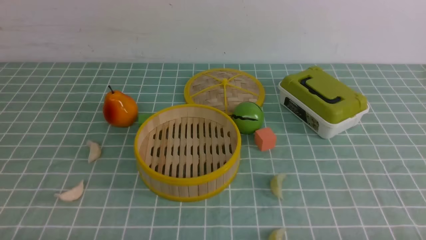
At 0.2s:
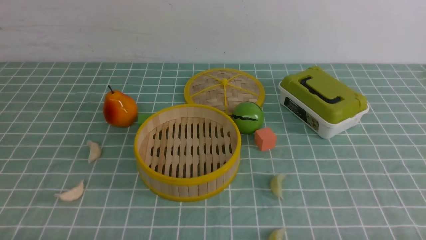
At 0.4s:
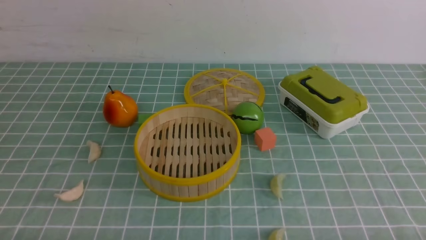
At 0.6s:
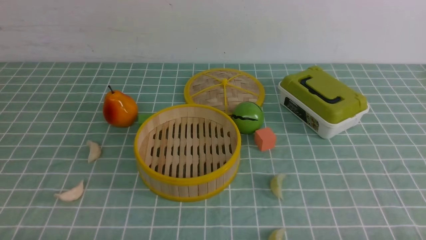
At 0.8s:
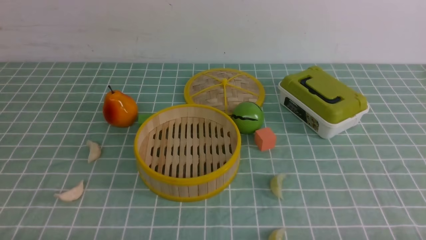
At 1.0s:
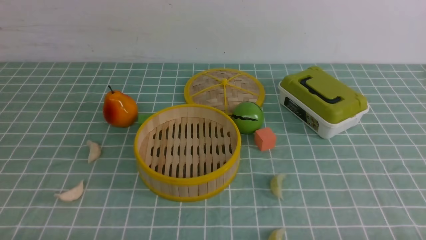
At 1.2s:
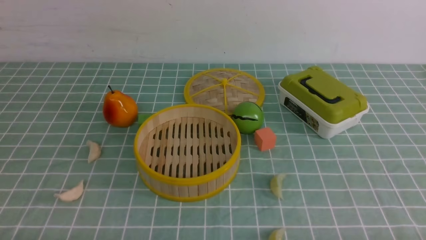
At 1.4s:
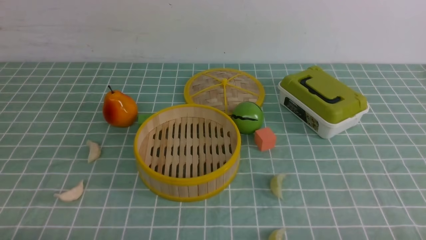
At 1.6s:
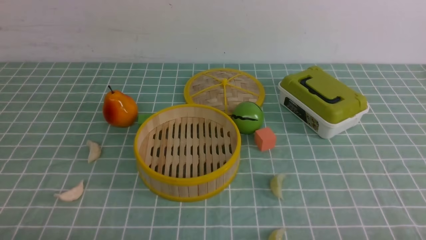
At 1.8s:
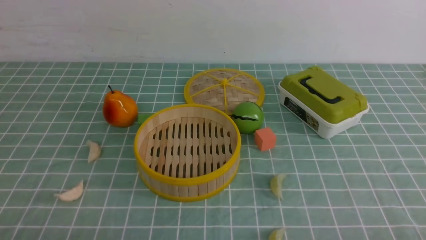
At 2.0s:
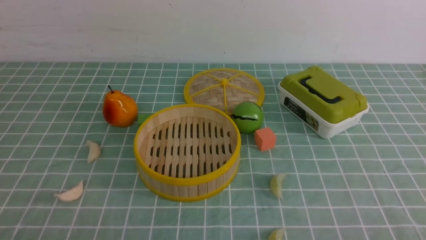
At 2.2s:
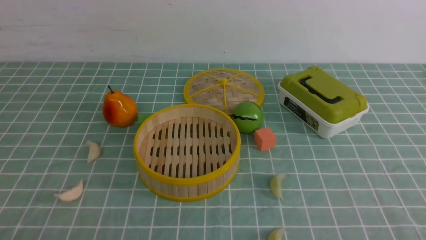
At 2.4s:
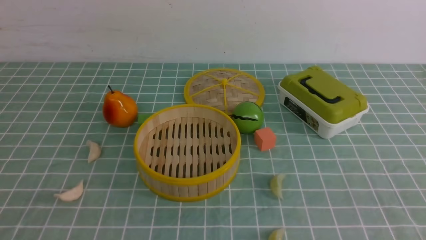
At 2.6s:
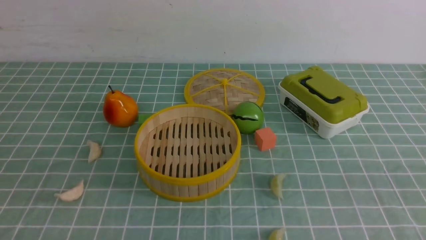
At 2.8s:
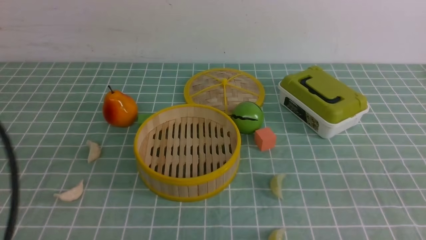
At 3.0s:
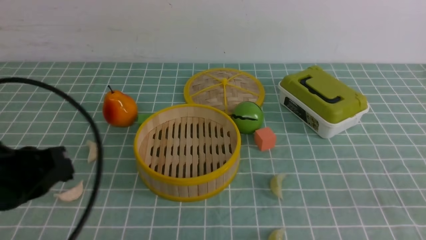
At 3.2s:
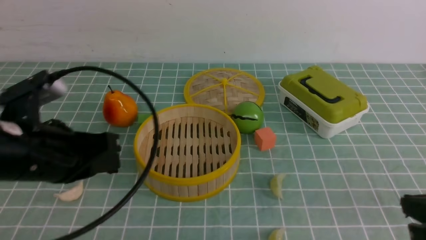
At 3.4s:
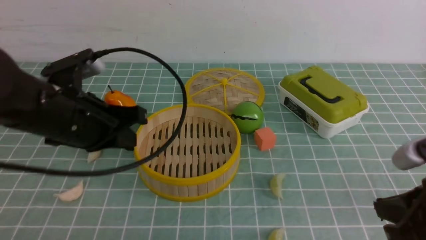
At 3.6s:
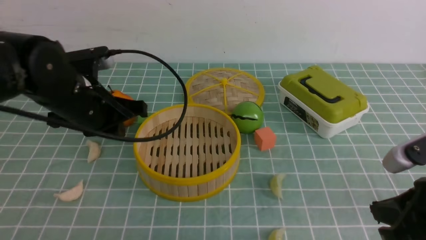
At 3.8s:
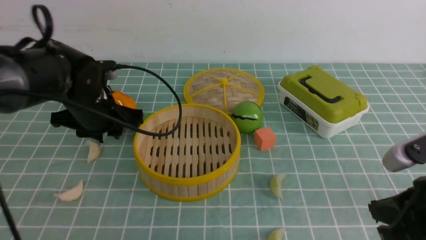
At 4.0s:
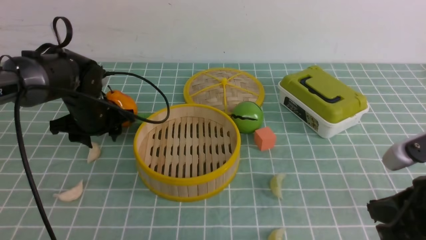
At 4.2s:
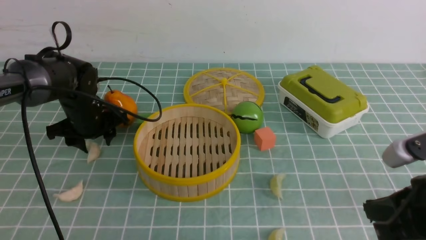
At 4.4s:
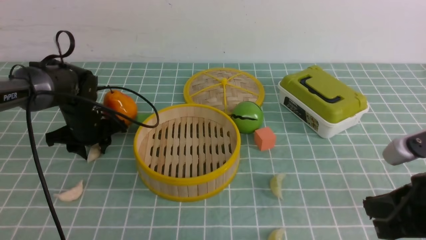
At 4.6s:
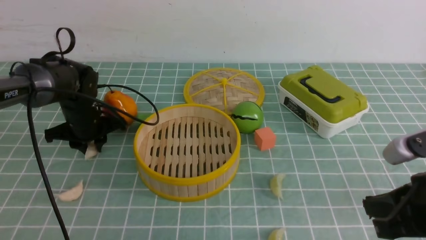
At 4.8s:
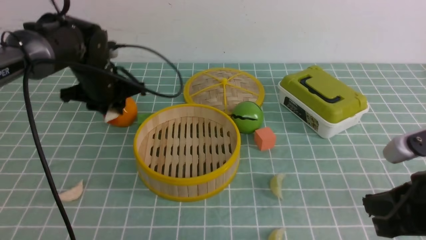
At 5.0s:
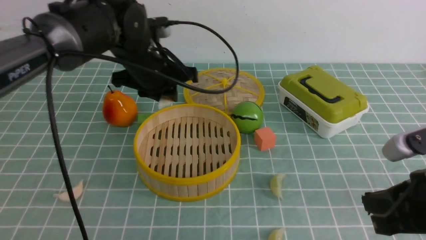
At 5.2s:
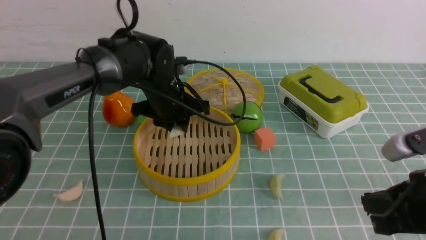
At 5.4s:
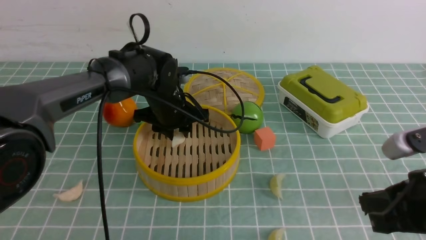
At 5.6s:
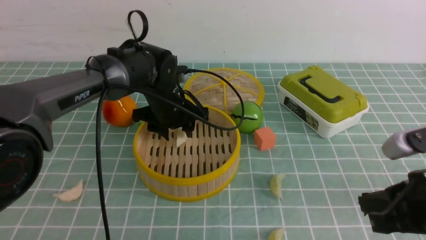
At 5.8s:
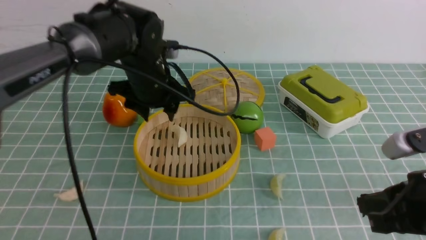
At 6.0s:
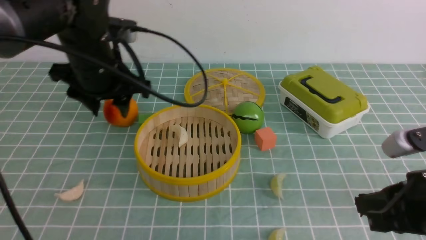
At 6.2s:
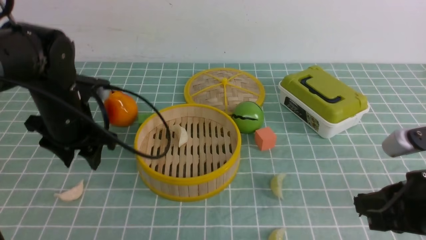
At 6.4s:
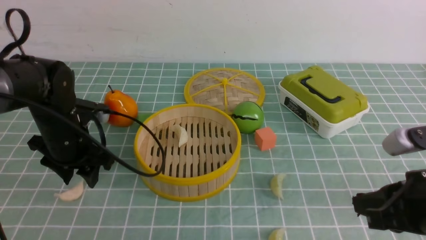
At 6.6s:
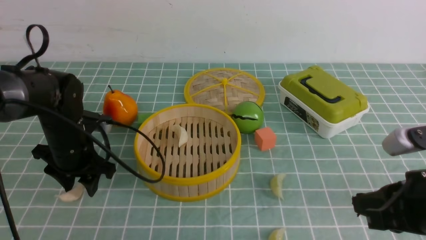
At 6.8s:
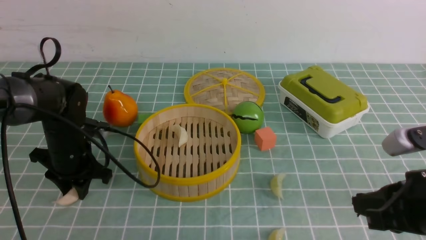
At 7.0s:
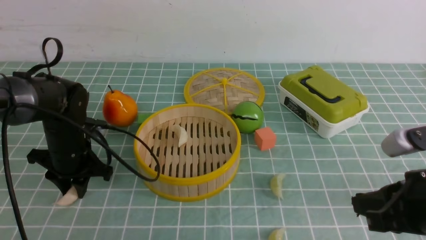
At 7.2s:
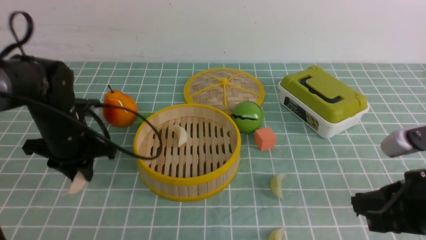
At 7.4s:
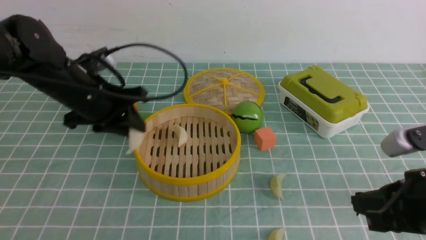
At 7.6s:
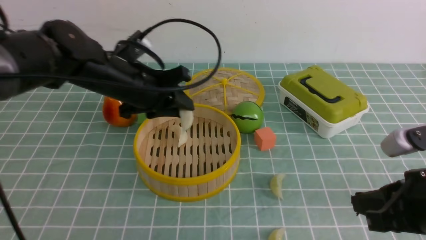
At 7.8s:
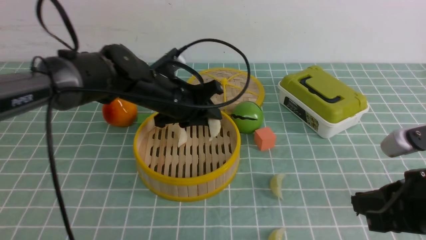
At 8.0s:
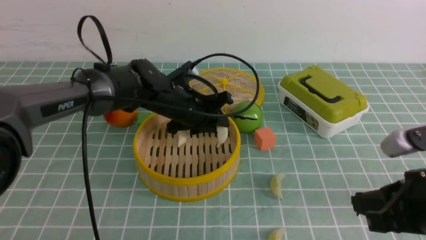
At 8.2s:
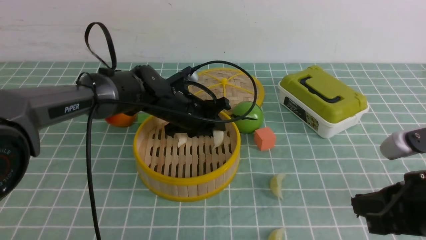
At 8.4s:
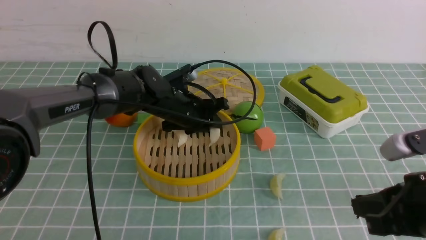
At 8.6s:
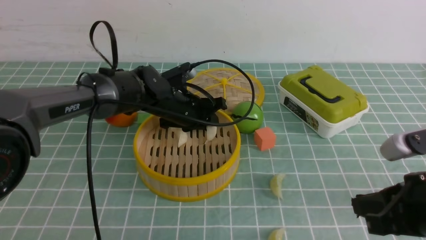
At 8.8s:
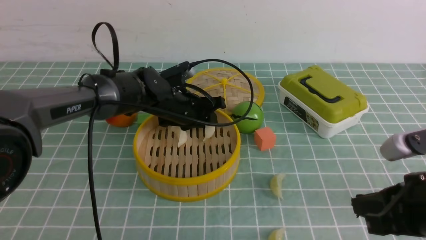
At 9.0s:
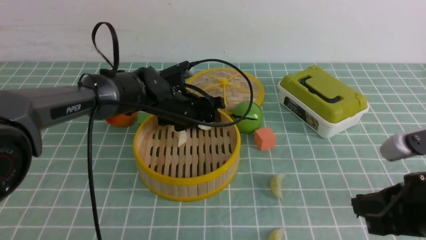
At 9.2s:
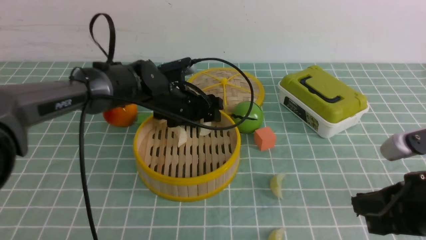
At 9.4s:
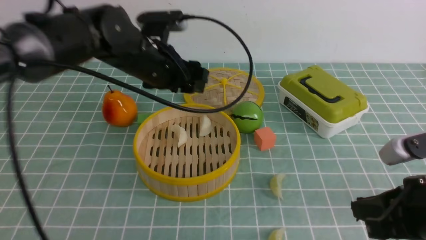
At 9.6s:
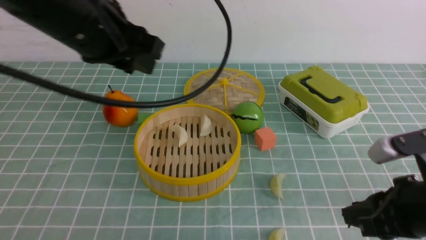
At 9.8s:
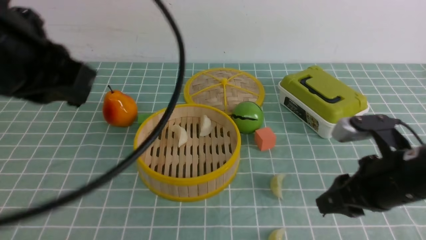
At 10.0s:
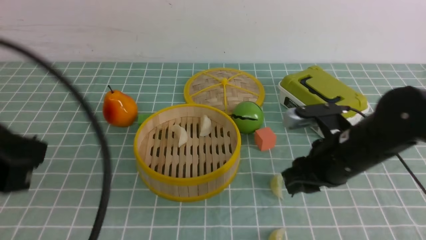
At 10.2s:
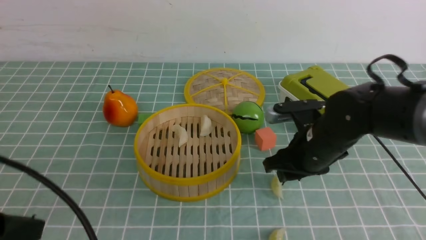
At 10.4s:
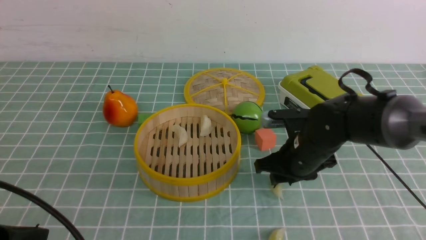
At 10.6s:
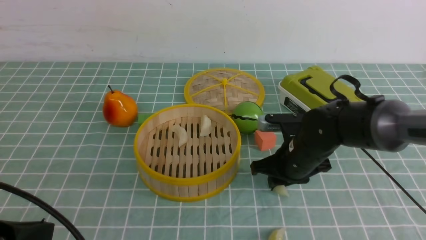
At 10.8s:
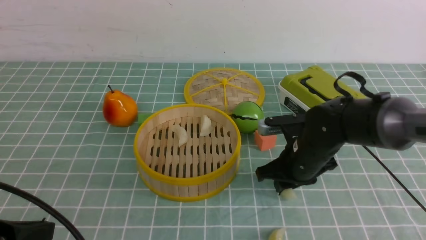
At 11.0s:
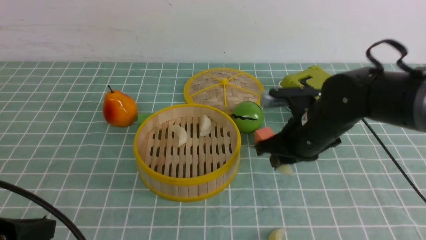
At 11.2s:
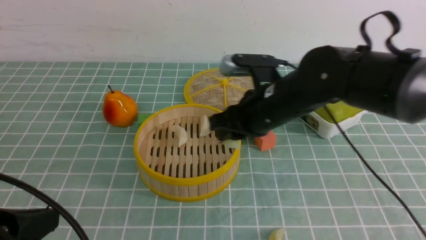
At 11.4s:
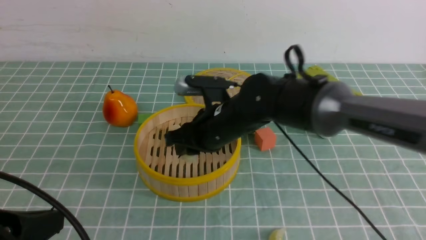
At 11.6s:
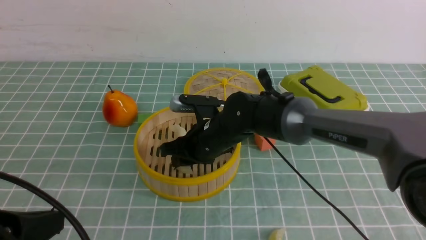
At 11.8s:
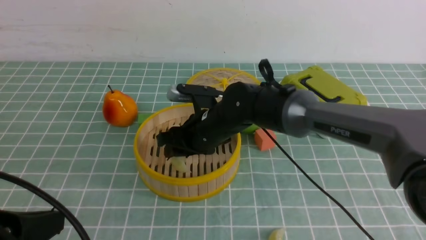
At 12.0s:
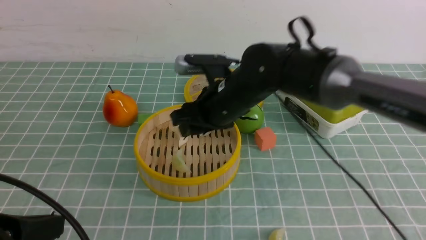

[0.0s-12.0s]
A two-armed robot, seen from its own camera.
Task of the whole recording: put the dumplings into the steamer on the table with the blue tablecloth.
Step, 0.0s to 4.4s: use the left arm to grab a dumpling.
Step, 4.6s to 5.6s: use the left arm to put the dumpling into the steamer.
Step, 5.8s to 6.8s: use the left arm to grab a dumpling.
Step, 7.2s to 9.2s: use the left arm to put the dumpling into the steamer.
Step, 9.4s to 10.6s: use the right arm to grab a dumpling.
Step, 10.8s to 11.8s: use the right arm to put the dumpling into the steamer.
1.6s to 3.0s: The left gripper shifts roughly 15 cm forward and upward.
3.0s to 4.4s: The left gripper travels forward and downward by about 30 cm, and opens up; the right gripper ends up roughly 5 cm from where it was.
4.4s to 6.0s: The left gripper goes approximately 15 cm upward, to the right and backward.
6.0s to 7.6s: The left gripper travels downward and back again, approximately 10 cm each way, and closes up.
7.6s to 9.0s: The left gripper heads downward, to the right and forward, covering roughly 10 cm, and opens up.
9.0s to 10.4s: The left gripper is displaced backward and to the left by approximately 35 cm, and closes. Meanwhile the right gripper heads forward, to the left and downward, covering roughly 20 cm, and opens.
10.4s to 12.0s: The right gripper shifts roughly 15 cm to the left and upward.

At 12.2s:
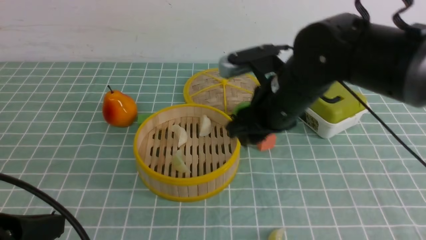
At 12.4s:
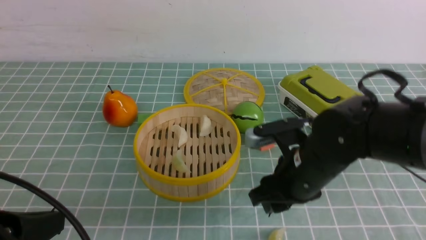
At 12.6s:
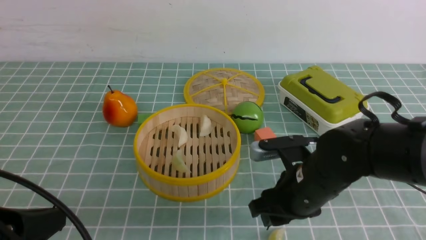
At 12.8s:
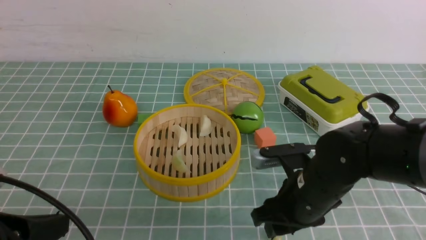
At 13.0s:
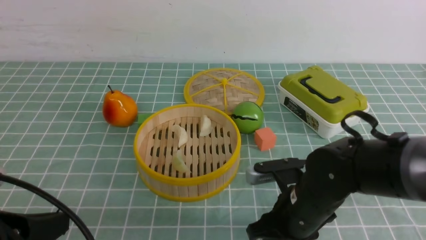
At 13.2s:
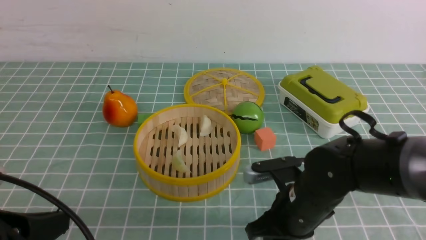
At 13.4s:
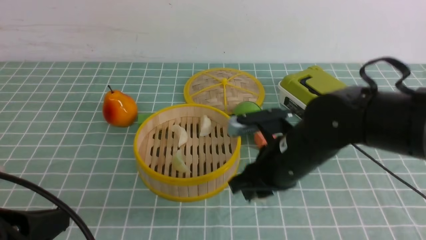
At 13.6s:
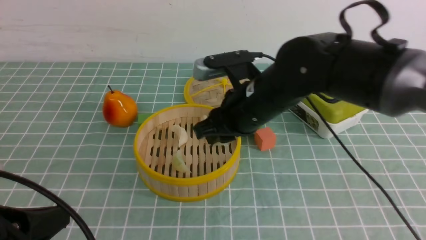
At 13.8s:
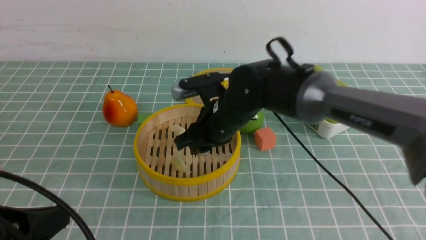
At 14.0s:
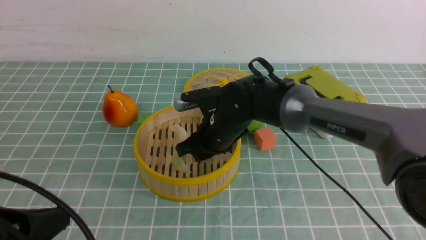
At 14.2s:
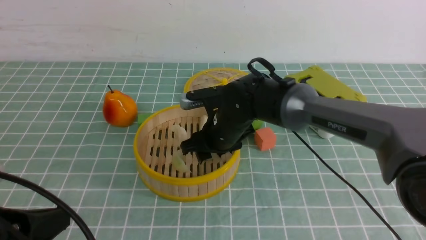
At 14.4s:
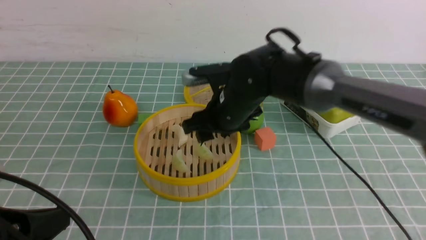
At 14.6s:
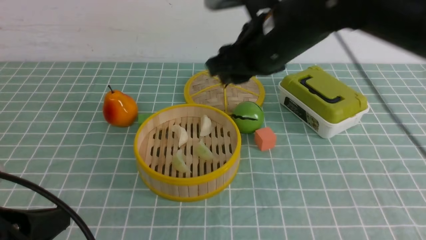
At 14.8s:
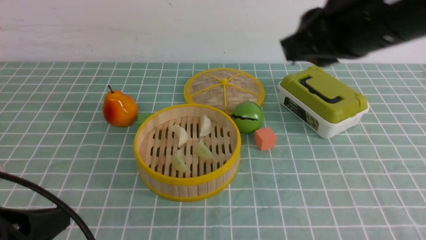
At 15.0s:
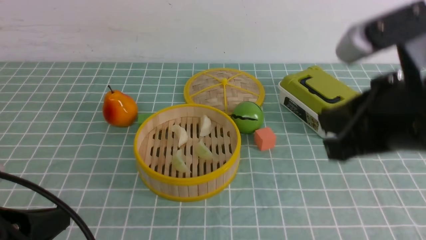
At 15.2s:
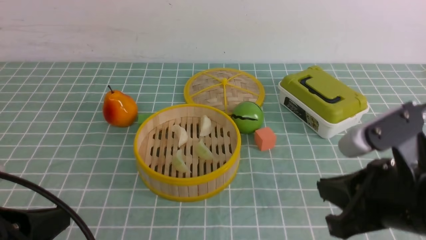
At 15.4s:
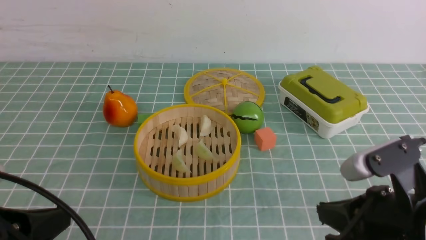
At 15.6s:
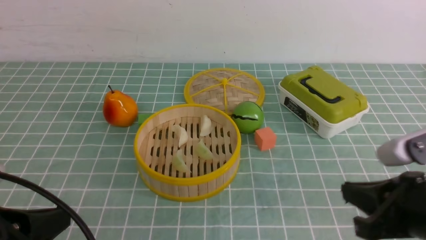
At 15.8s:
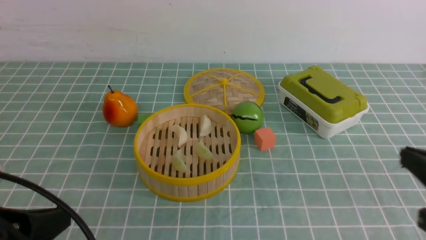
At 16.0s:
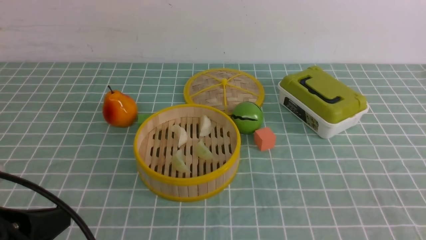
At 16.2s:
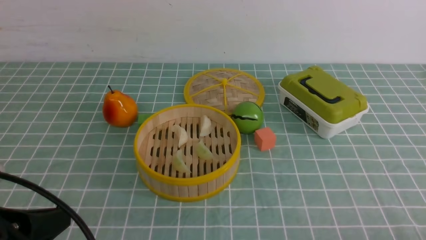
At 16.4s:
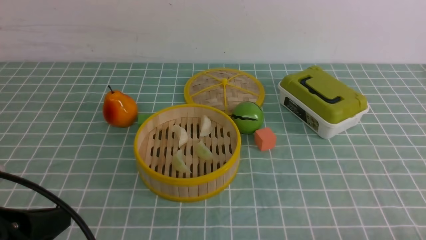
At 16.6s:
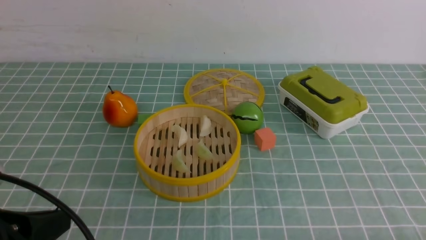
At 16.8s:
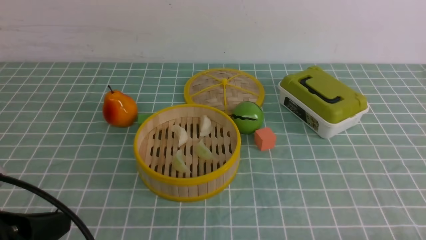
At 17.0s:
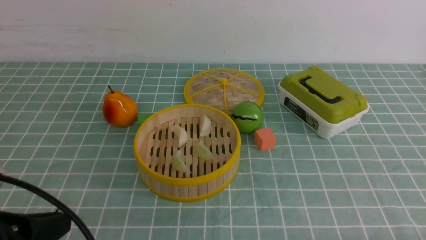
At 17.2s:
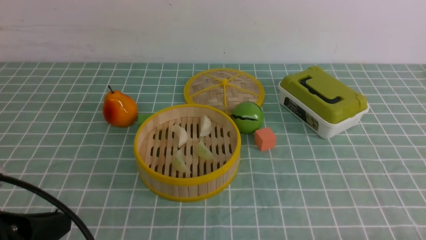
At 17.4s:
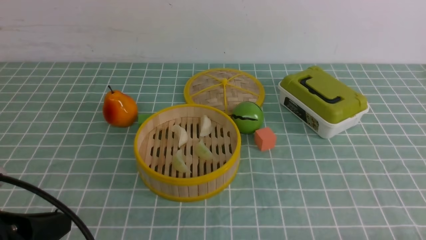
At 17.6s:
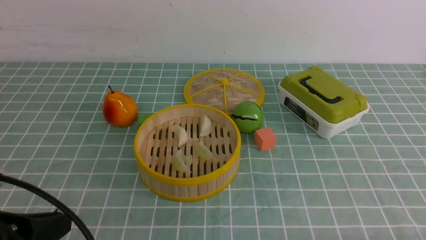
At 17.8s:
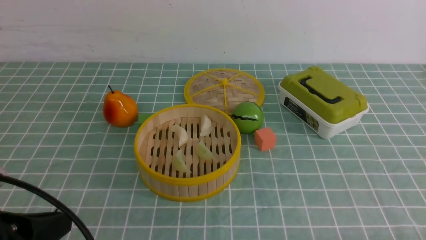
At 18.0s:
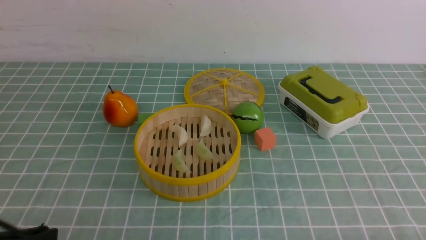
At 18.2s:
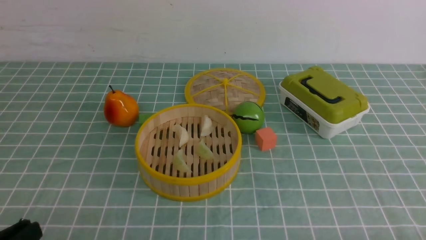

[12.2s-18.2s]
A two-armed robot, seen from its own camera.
Task of the whole recording: put the dumplings into the steamer on the table with the blue tablecloth.
Step, 12.2s to 13.0s: use the right arm to grab a dumpling.
Step, 13.2s to 14.4s: use the right arm to put the dumpling into the steamer.
12.2s to 13.8s: The right gripper is displaced to the left by some 5 cm, and closes its fingers.
13.8s to 15.2s: The right gripper shifts approximately 25 cm backward and to the right, and closes up.
15.2s to 16.6s: The right gripper travels to the right, downward and backward by about 20 cm.
16.6s to 18.2s: The left gripper travels downward by roughly 5 cm.
